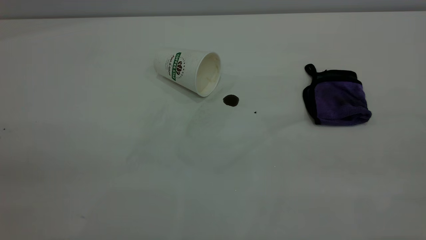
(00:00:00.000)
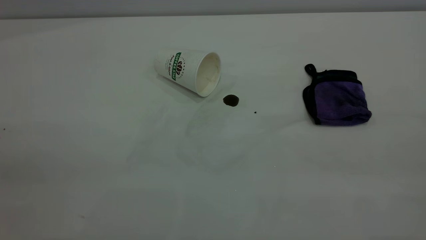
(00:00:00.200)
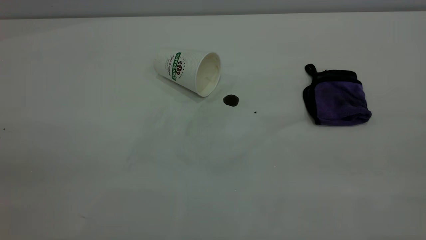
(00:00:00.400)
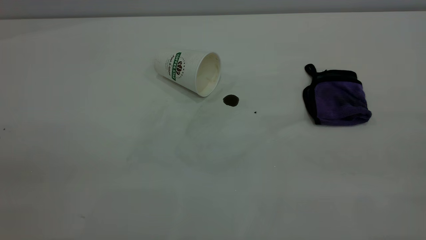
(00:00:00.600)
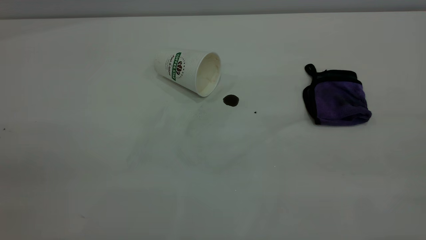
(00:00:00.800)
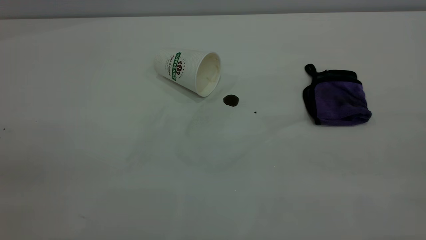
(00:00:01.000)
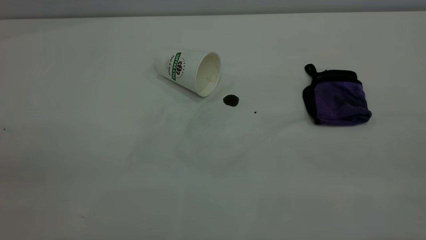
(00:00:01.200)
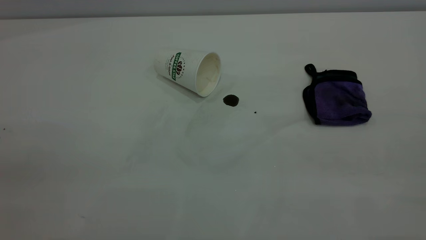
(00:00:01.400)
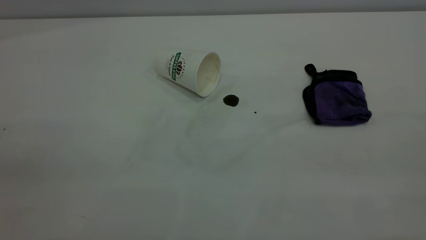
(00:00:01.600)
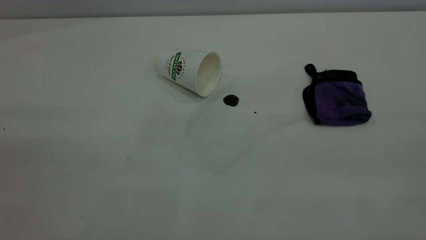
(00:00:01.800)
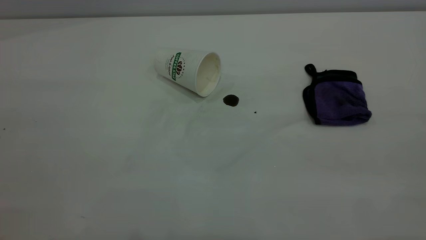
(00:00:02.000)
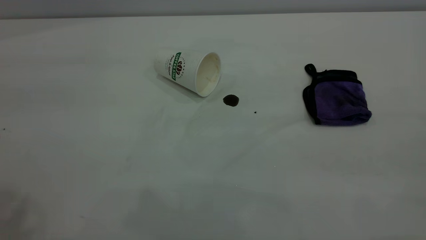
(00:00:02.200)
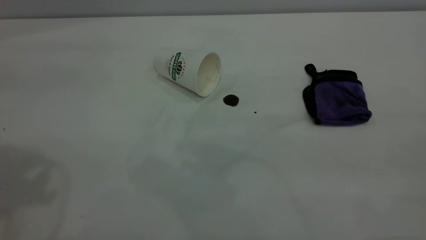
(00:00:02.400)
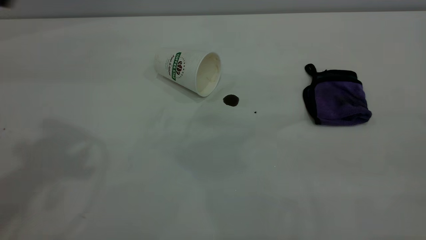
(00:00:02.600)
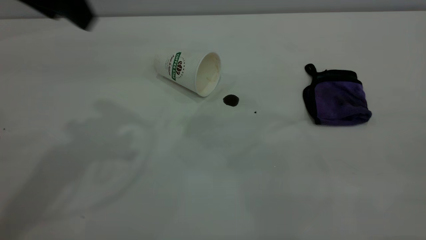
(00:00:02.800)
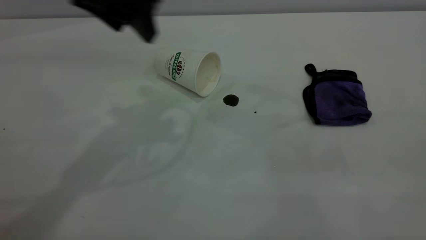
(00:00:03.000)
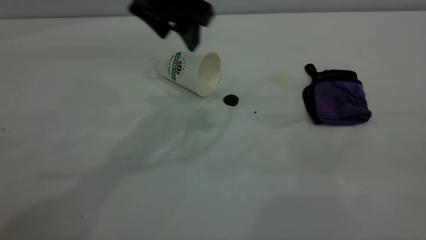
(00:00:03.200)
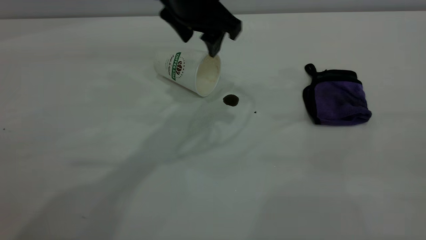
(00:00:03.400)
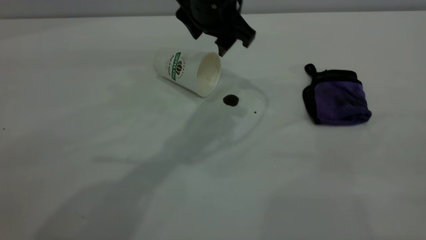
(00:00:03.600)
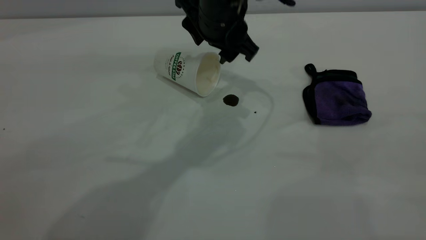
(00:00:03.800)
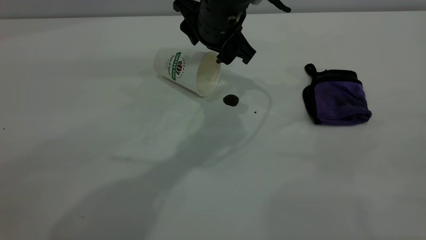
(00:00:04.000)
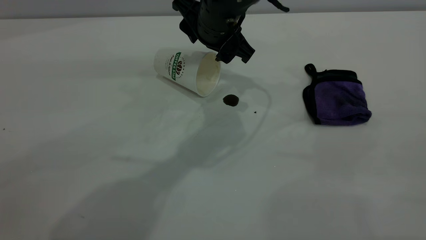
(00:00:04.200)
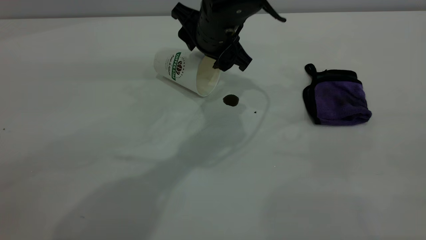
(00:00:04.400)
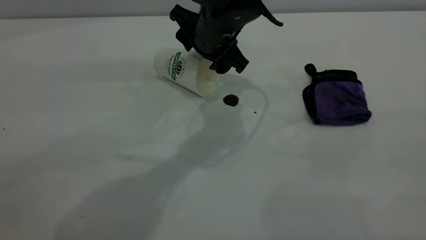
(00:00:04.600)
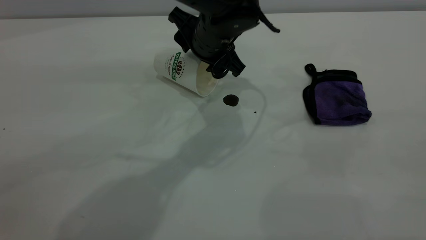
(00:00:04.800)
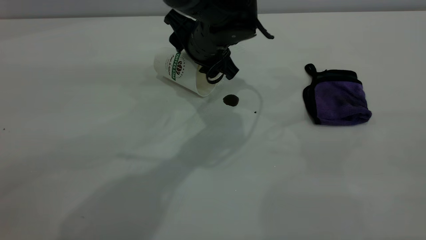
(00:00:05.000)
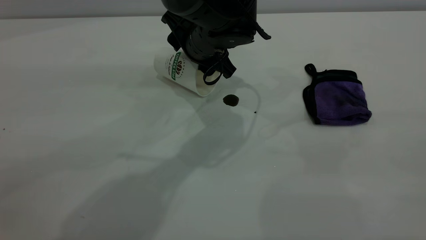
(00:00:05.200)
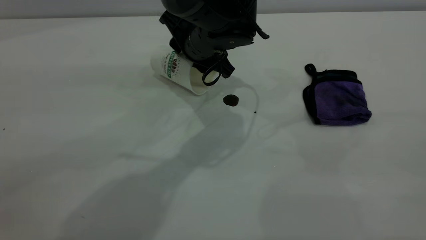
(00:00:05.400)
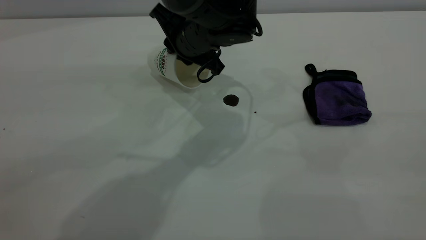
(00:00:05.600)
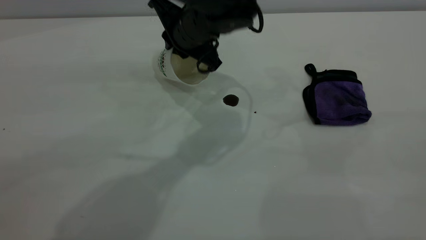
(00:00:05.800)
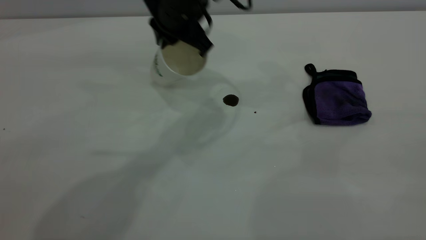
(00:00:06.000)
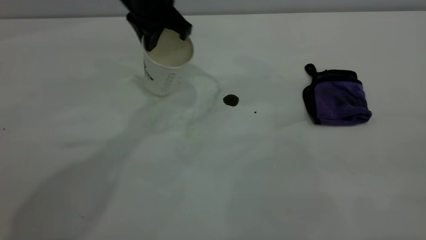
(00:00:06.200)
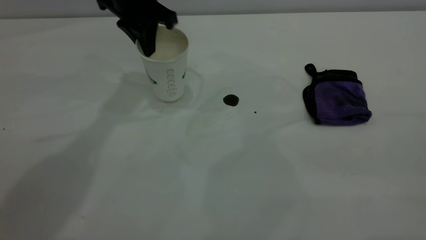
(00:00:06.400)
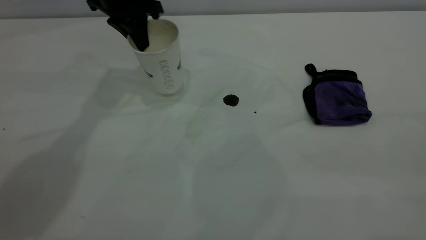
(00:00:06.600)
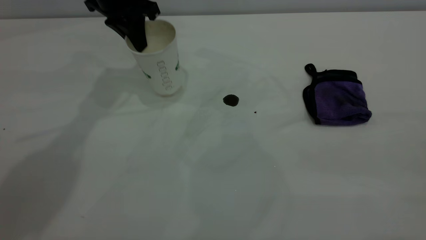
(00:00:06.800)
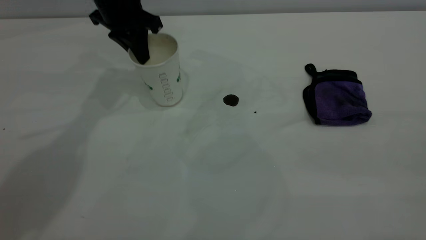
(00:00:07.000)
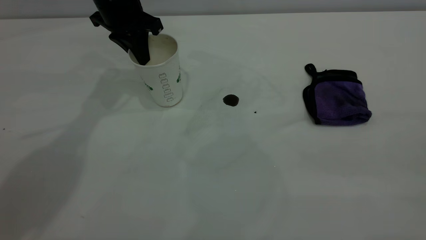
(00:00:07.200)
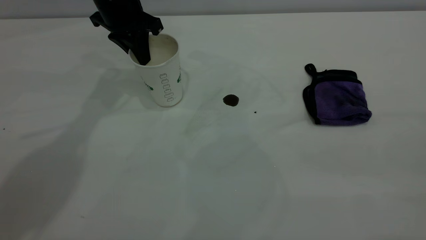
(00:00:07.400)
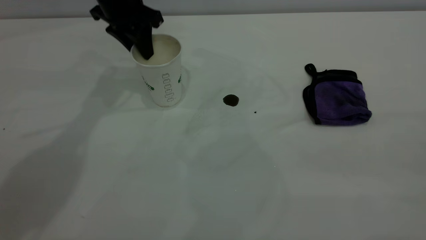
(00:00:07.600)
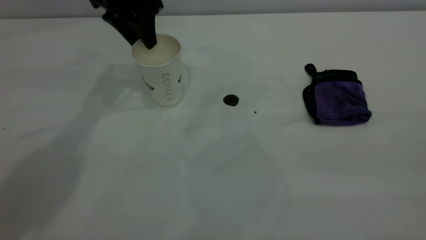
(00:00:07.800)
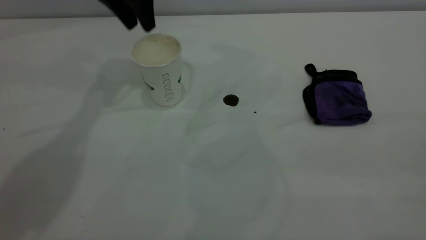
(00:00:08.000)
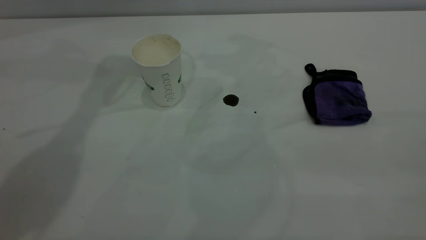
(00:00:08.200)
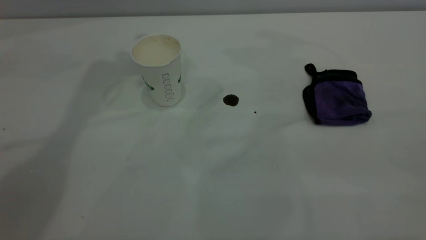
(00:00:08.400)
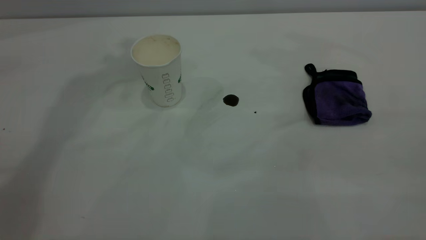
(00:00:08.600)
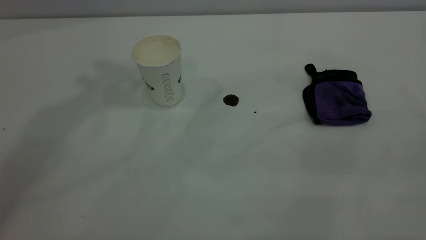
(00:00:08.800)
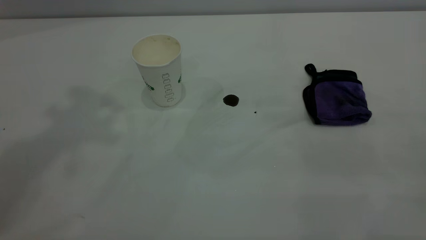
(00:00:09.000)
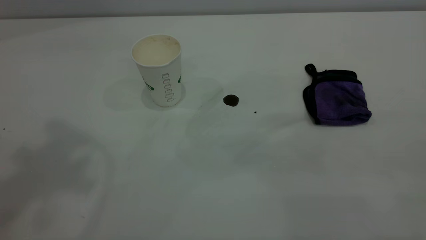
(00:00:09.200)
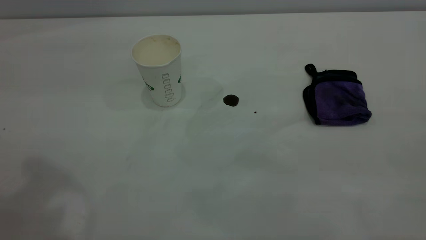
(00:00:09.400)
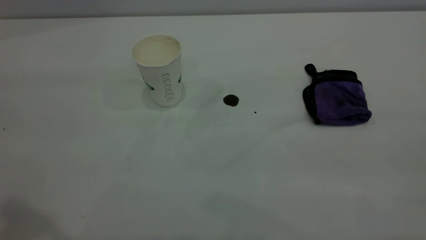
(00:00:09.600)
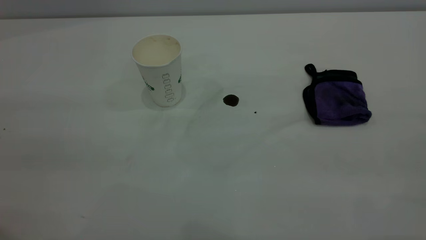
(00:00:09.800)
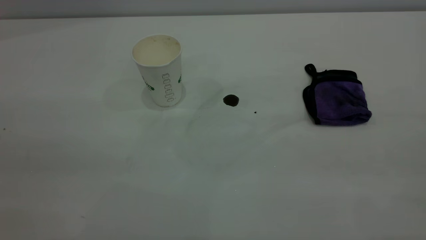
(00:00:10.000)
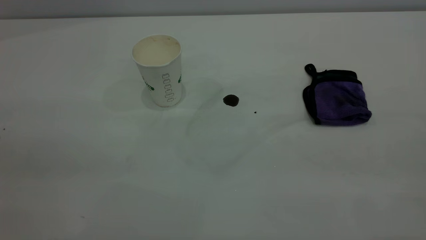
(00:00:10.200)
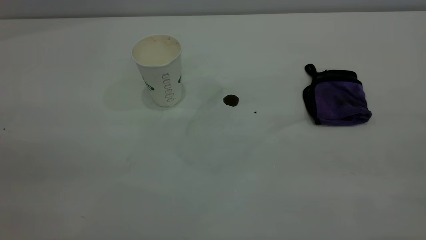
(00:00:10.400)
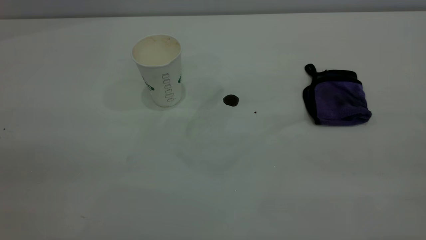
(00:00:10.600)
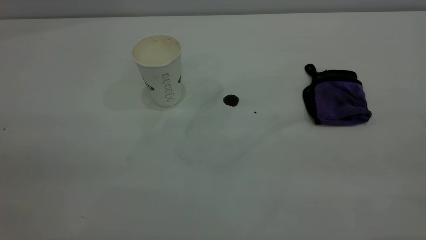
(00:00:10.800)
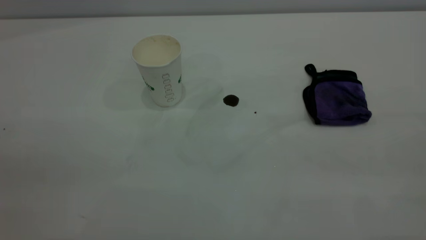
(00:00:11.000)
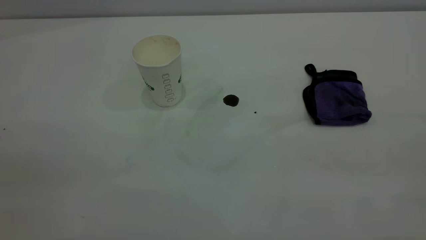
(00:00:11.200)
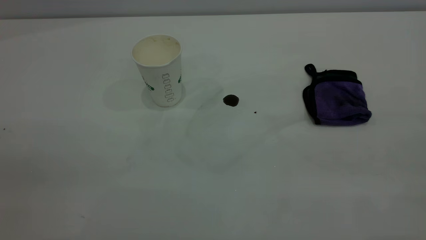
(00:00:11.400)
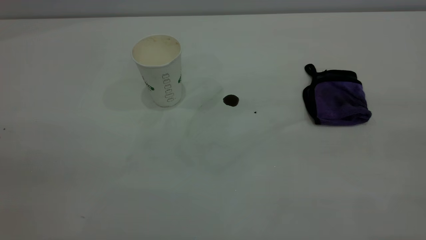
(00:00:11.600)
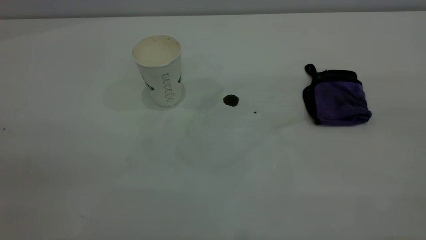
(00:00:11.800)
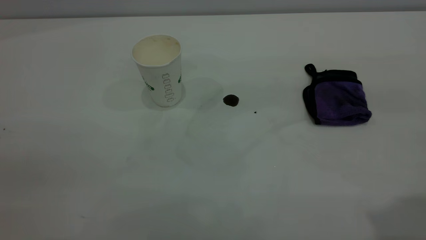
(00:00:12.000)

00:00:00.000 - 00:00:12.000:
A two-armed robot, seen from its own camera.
Task of the whole recording: the left gripper pick up the fallen cup and place it upright, the right gripper grasp the purple rag and wipe the coffee stain on the table, the right gripper put the purple rag back in its original position.
Step, 00:00:00.000 - 00:00:07.800: Stand the paper cup upright.
00:00:00.000 - 00:00:01.600: Both grippers stay about where they are.
00:00:01.600 - 00:00:03.000: The left gripper shifts some 40 cm forward and to the right.
00:00:03.000 - 00:00:04.400: The left gripper shifts approximately 20 cm to the right and downward.
00:00:04.400 - 00:00:06.000: The left gripper travels to the left by about 5 cm, and closes.
00:00:06.000 - 00:00:07.600: The left gripper is displaced to the left and forward by some 15 cm, and opens its fingers.
00:00:07.600 - 00:00:09.000: The left gripper moves upward and backward, some 40 cm.

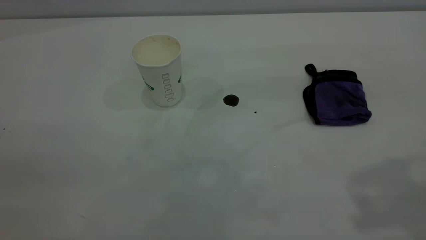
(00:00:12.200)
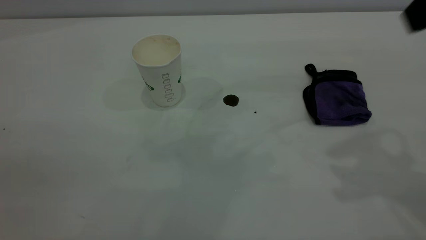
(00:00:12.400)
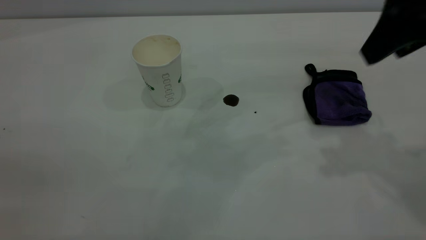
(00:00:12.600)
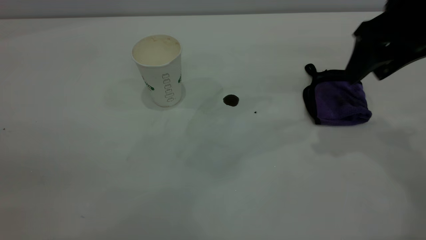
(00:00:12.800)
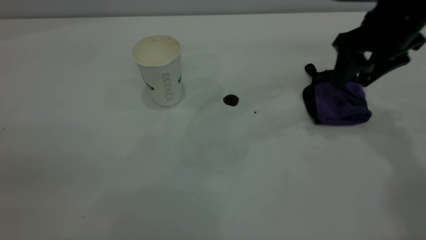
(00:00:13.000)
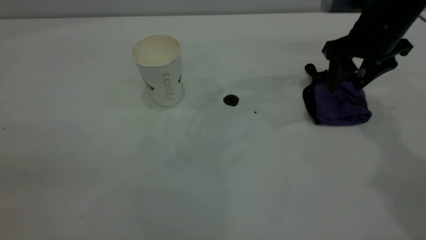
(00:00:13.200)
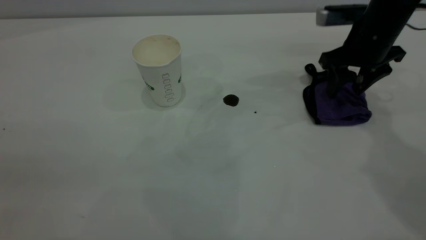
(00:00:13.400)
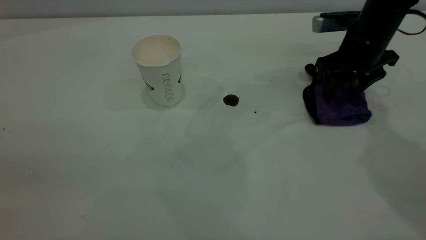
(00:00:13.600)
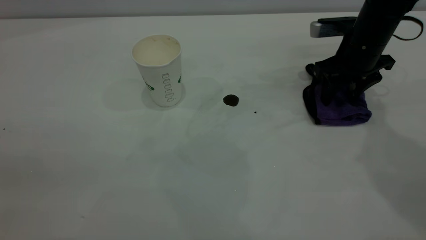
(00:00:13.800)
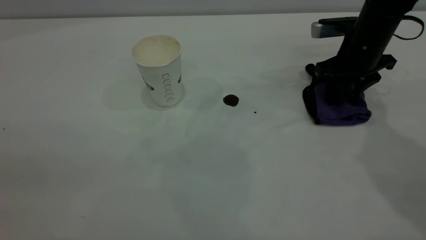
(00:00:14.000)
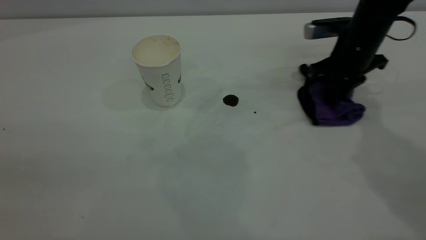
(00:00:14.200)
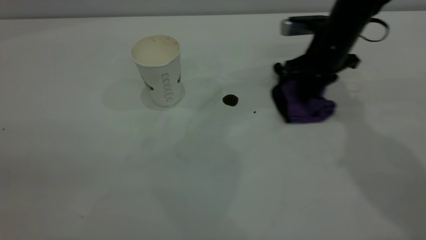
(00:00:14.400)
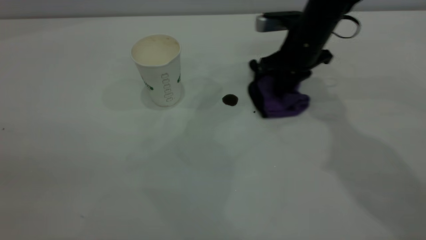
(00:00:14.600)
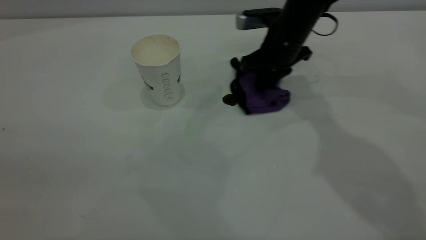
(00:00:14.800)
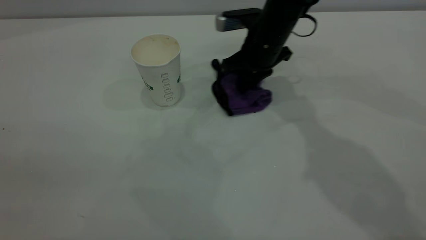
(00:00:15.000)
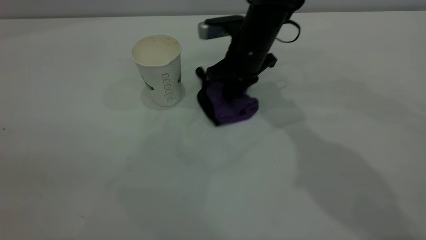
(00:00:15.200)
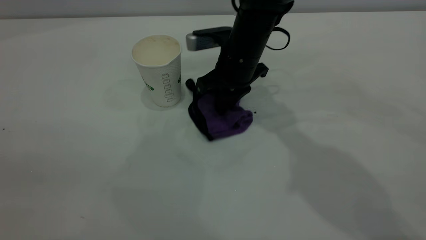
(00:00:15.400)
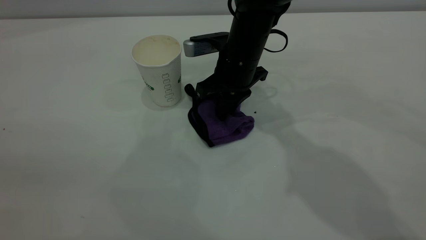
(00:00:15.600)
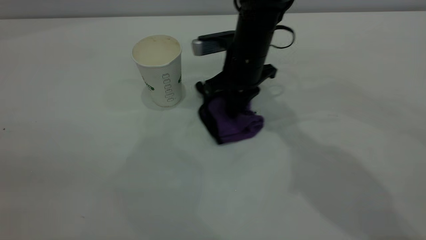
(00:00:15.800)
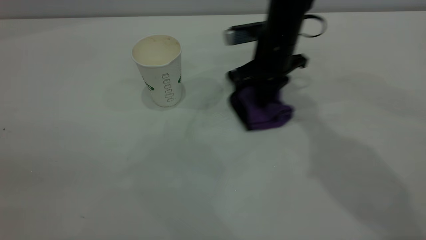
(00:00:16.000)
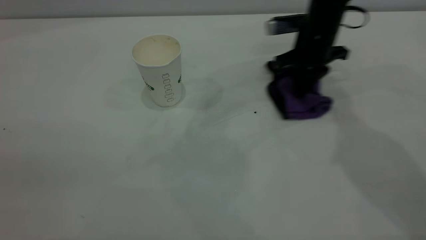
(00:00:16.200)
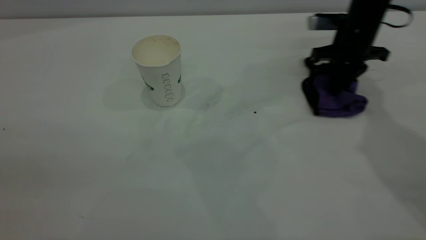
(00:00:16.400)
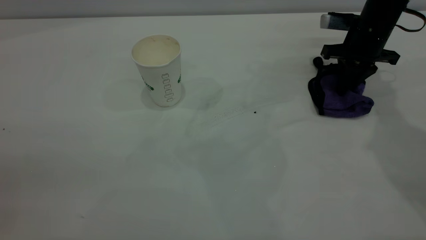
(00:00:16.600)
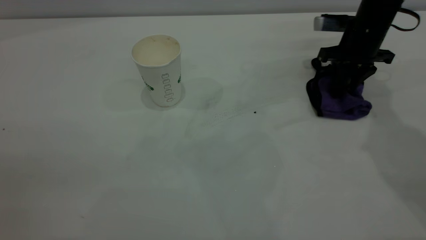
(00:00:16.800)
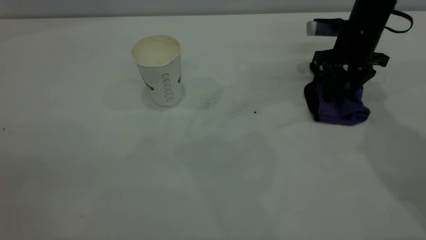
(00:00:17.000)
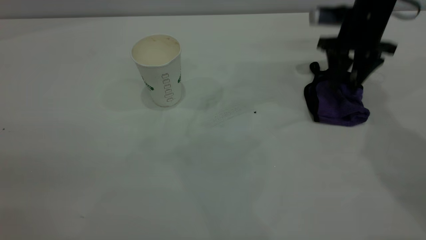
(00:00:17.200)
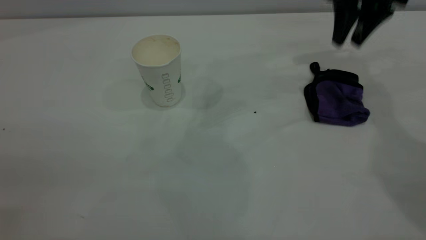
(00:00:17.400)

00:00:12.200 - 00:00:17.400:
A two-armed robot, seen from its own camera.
Task of the whole recording: the left gripper pick up the fallen cup and place it upright, the right gripper grasp the purple rag and wipe the coffee stain on the table, the right gripper put the purple rag back in its original position.
Step, 00:00:12.200 - 00:00:17.200: Wipe the stains off the table with a rag.
00:00:12.200 - 00:00:14.000: The right gripper goes approximately 35 cm downward and forward, and closes.
00:00:14.000 - 00:00:15.600: The right gripper shifts about 20 cm to the left, and closes.
00:00:15.600 - 00:00:17.400: The right gripper shifts some 25 cm to the right and upward, and opens.
